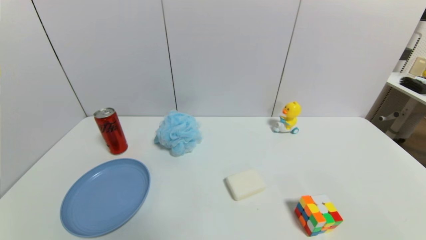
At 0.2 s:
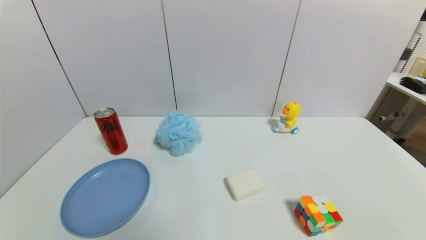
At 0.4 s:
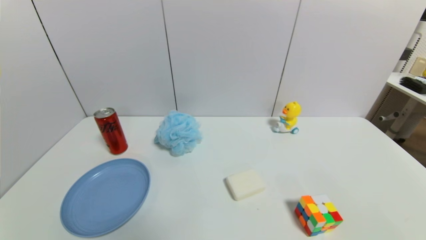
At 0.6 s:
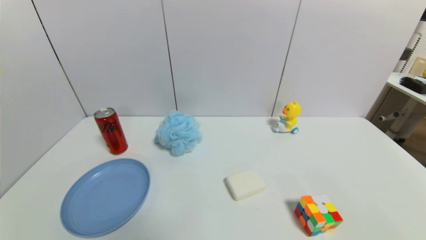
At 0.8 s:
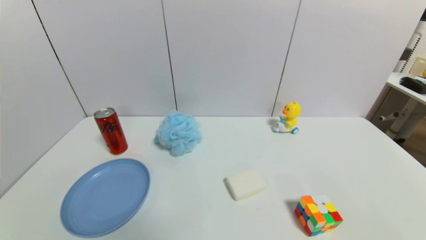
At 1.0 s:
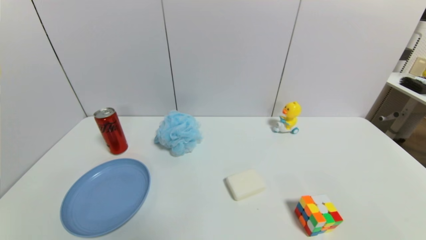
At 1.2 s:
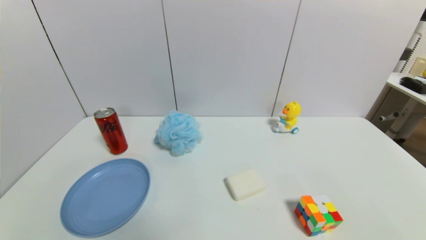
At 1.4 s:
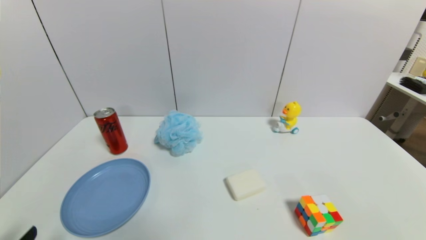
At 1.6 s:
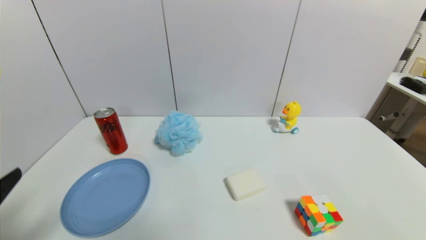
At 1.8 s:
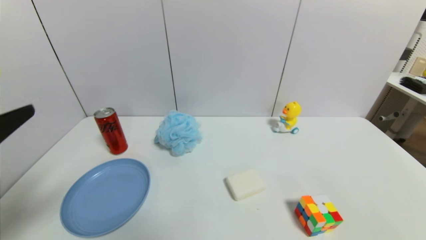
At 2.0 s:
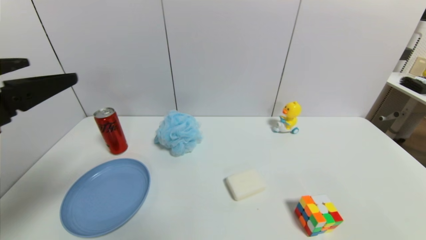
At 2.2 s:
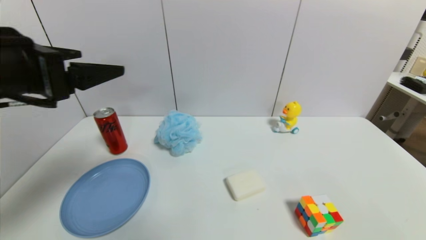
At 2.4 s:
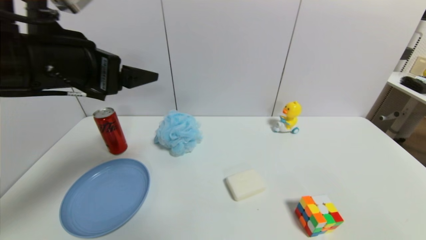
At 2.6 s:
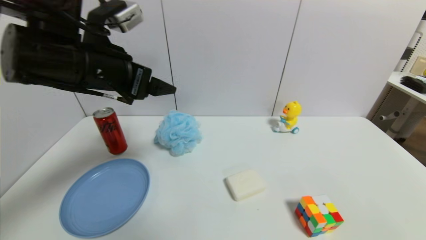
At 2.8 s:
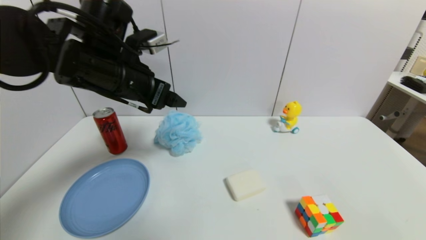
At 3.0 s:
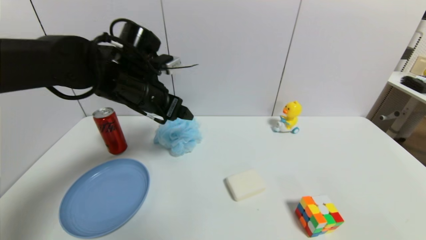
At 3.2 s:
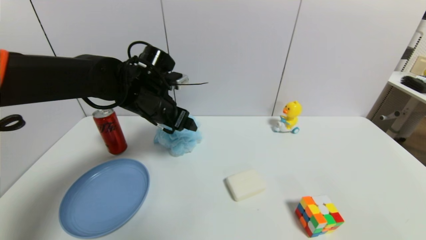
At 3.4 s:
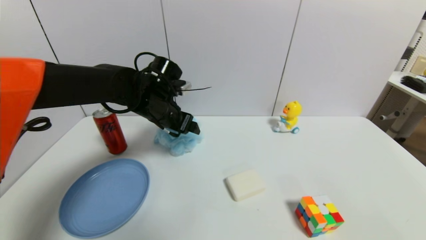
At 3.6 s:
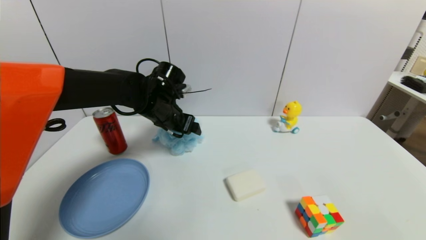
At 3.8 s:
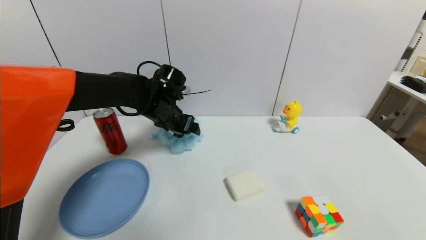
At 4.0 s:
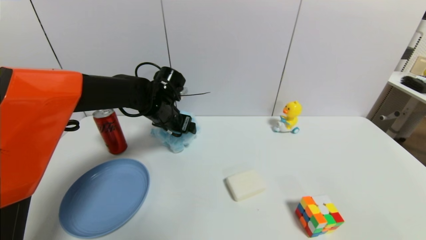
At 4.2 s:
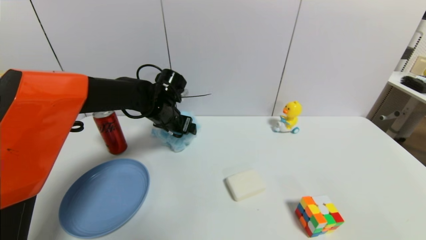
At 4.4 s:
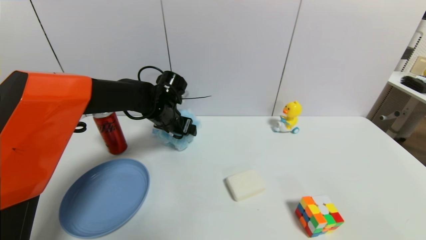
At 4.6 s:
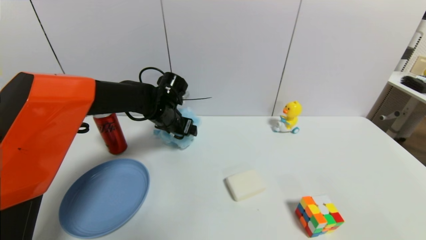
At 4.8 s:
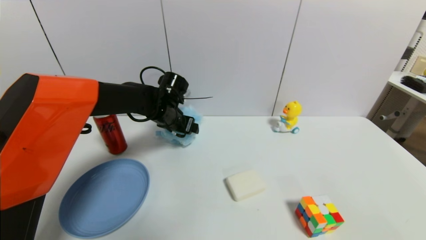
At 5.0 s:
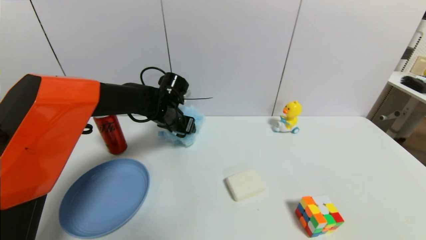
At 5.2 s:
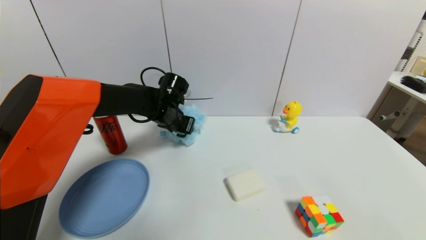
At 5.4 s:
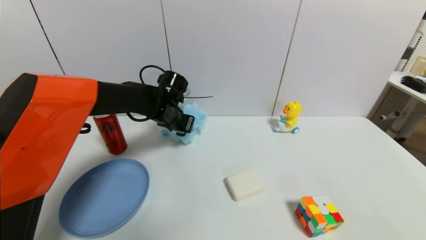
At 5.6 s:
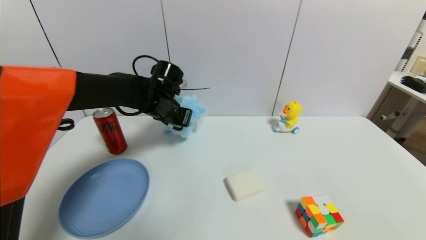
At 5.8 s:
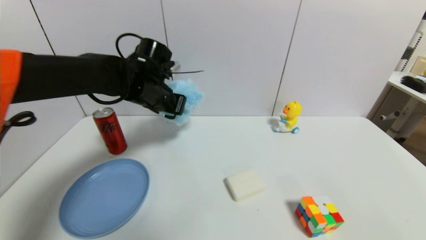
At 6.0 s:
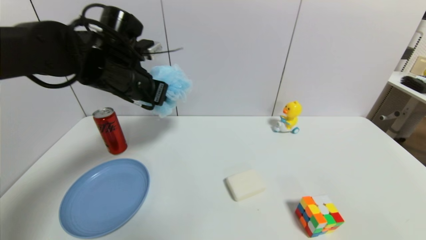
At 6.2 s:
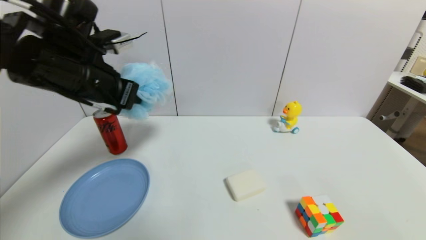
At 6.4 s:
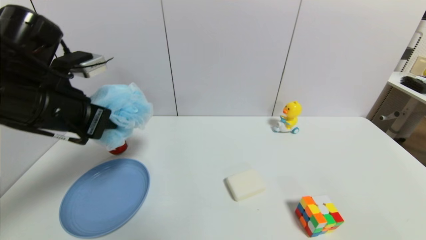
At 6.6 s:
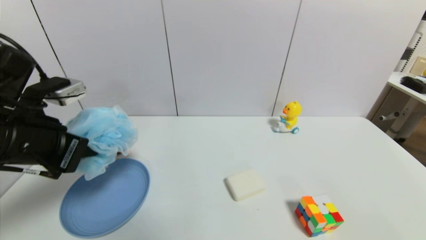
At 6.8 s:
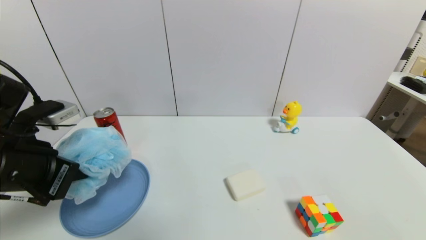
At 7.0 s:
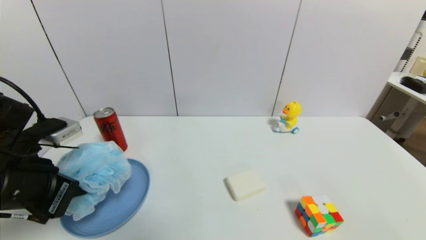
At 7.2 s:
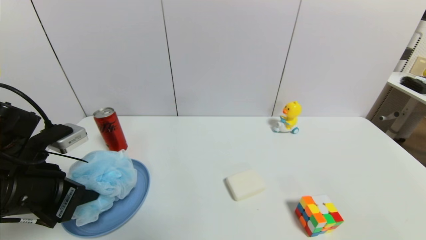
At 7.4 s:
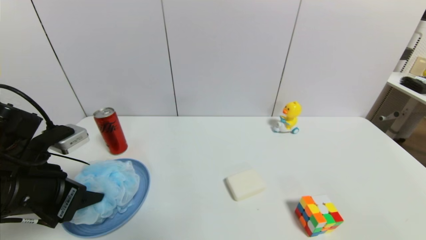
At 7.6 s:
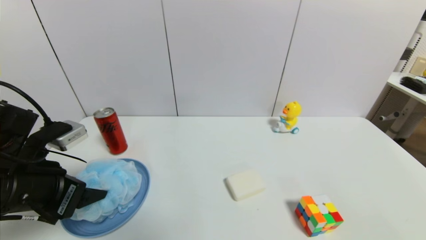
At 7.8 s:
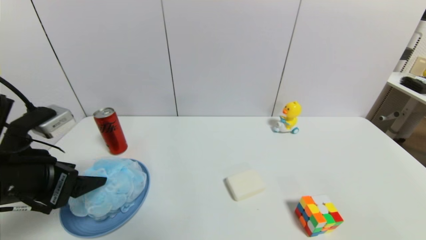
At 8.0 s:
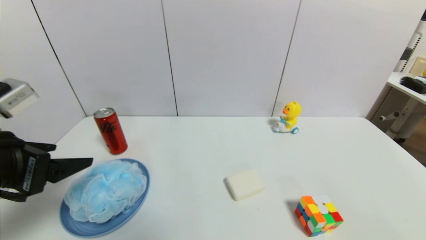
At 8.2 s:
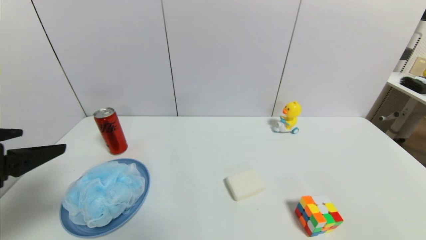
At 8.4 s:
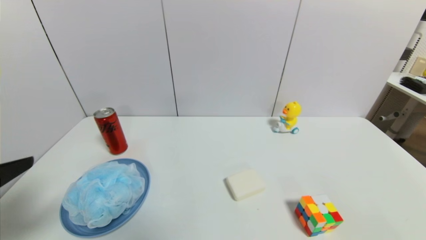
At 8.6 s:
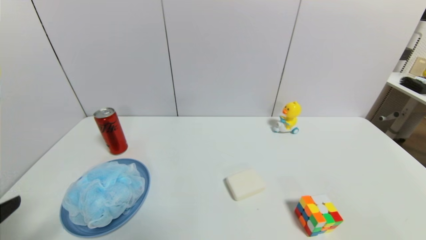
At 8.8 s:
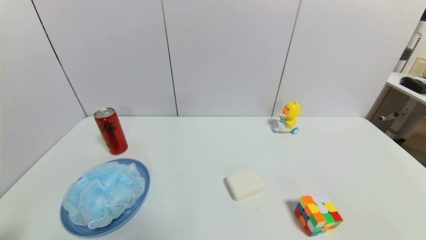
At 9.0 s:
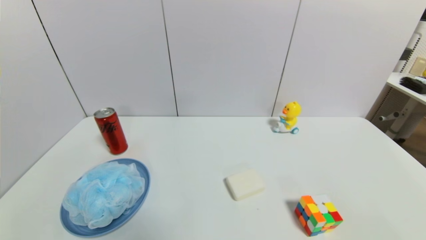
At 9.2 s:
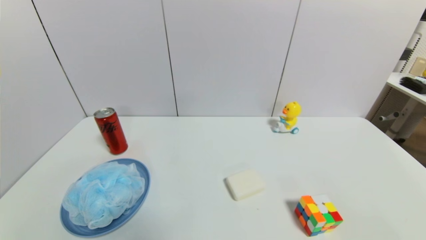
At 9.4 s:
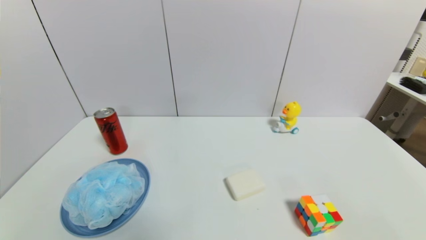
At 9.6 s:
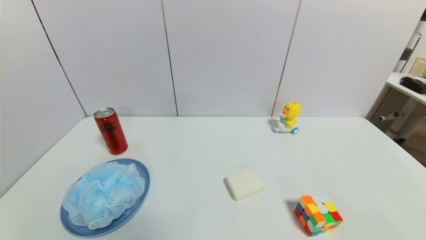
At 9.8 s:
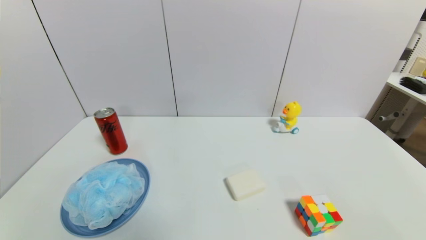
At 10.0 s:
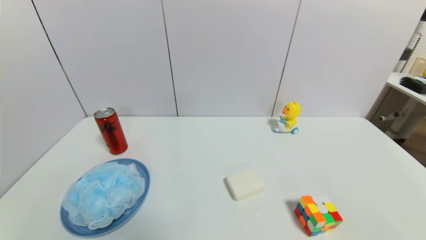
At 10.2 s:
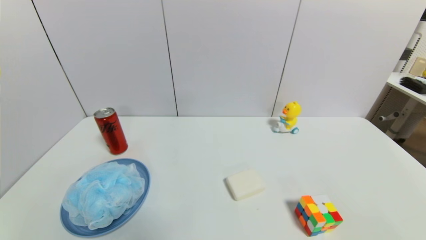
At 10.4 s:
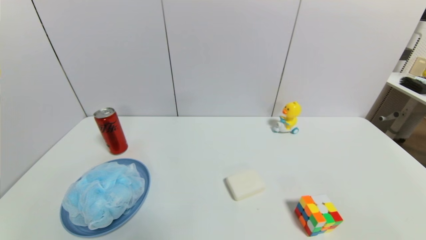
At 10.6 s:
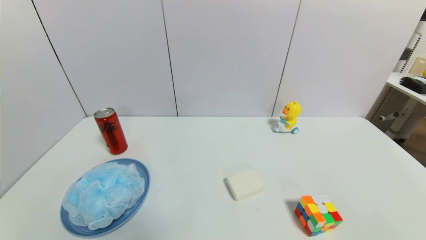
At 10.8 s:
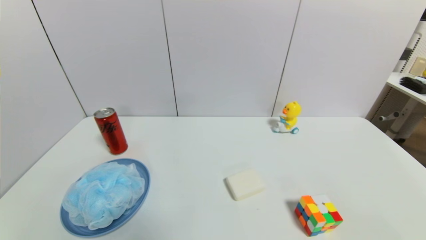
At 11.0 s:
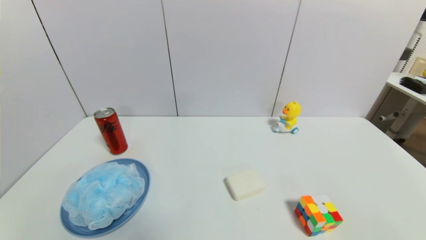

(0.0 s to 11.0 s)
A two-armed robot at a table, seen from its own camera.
Task of the whole recording: use a gripper to pick the target object and place on the blue plate.
Step, 0.0 s - 5.2 s: Grasp the shower sphere with the left gripper.
Step, 5.4 s - 8.2 s: Place the shower sphere on the blue plate with the left gripper.
0.0 s - 1.6 s: The left gripper moves upward, some 15 cm.
1.6 s - 3.2 s: The left gripper moves forward and to the right, some 35 cm.
3.2 s - 4.8 s: The left gripper shifts roughly 10 cm forward and downward.
4.8 s - 6.2 s: The left gripper moves upward, backward and to the left, about 20 cm, and closes its fingers.
6.2 s - 7.8 s: The left gripper shifts about 15 cm backward, downward and to the left, and opens up.
7.8 s - 9.4 s: The left gripper is displaced backward and downward by about 25 cm.
